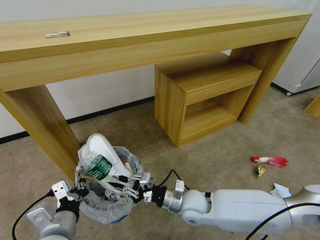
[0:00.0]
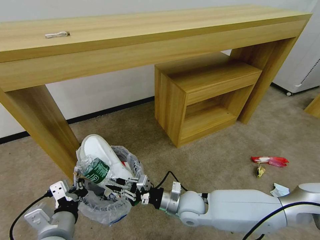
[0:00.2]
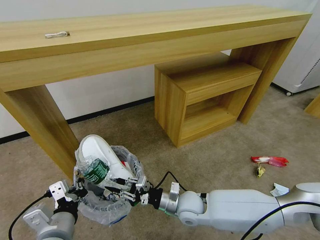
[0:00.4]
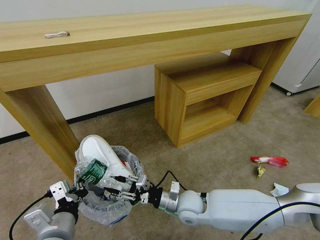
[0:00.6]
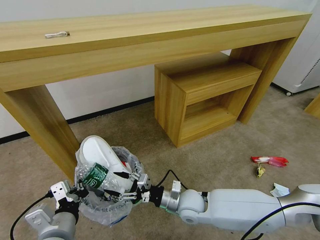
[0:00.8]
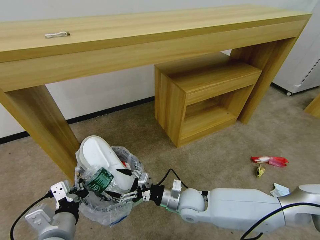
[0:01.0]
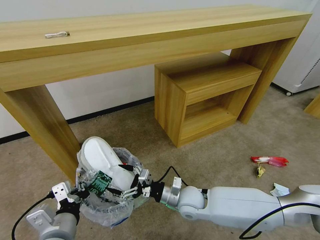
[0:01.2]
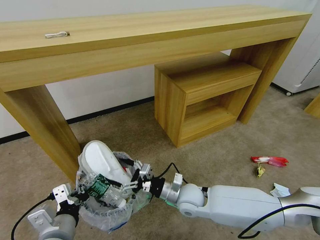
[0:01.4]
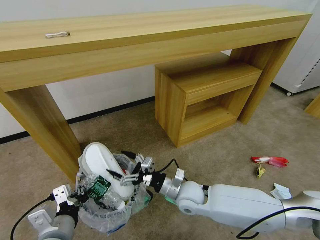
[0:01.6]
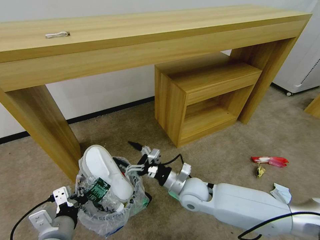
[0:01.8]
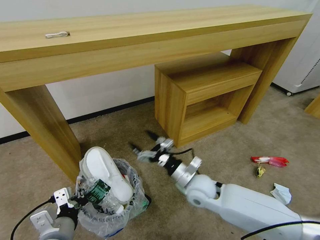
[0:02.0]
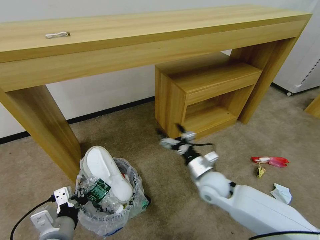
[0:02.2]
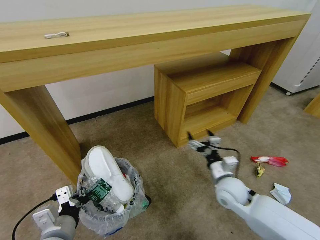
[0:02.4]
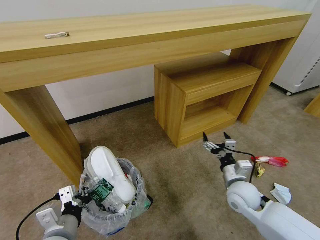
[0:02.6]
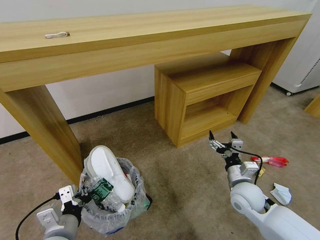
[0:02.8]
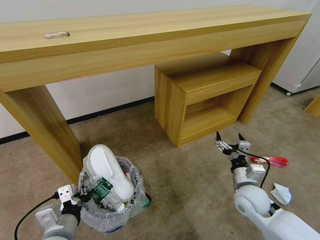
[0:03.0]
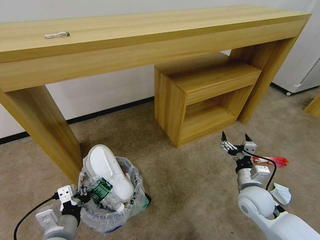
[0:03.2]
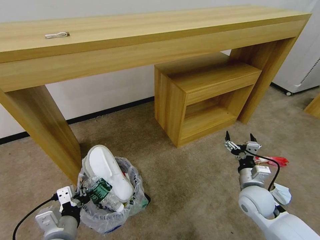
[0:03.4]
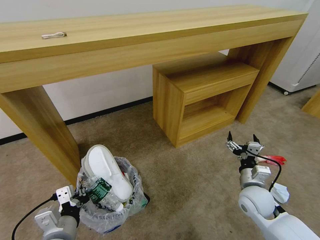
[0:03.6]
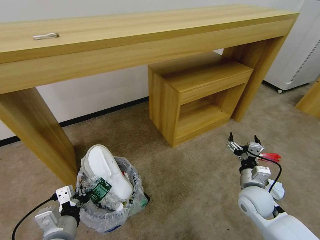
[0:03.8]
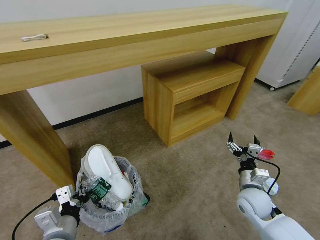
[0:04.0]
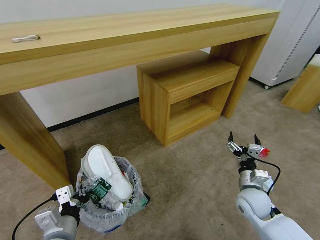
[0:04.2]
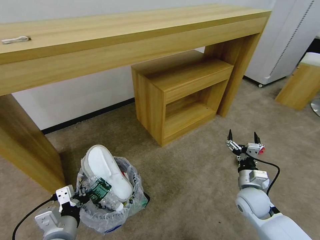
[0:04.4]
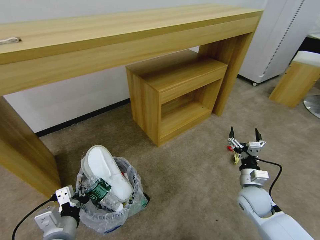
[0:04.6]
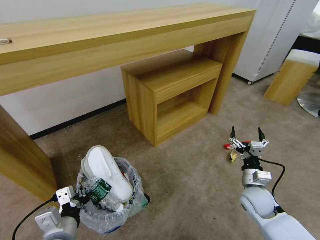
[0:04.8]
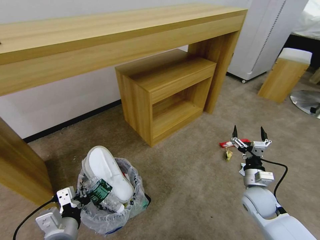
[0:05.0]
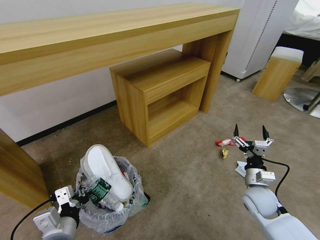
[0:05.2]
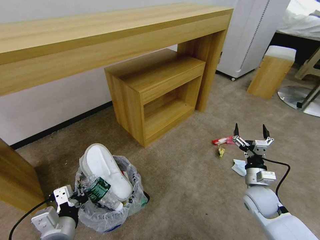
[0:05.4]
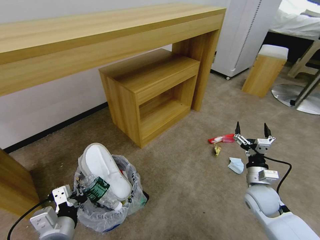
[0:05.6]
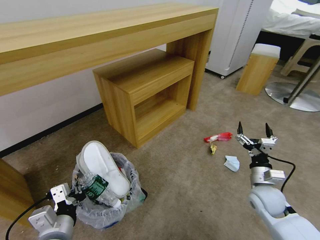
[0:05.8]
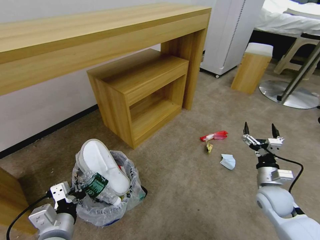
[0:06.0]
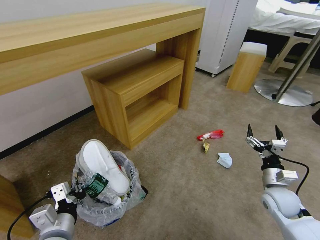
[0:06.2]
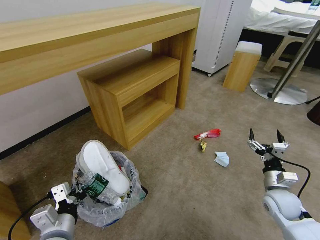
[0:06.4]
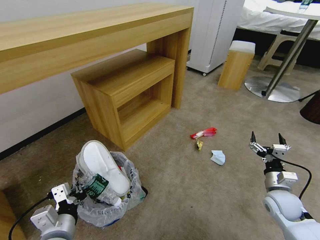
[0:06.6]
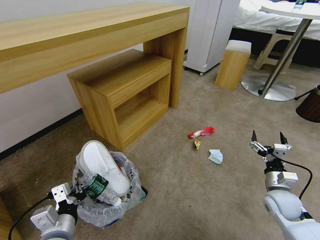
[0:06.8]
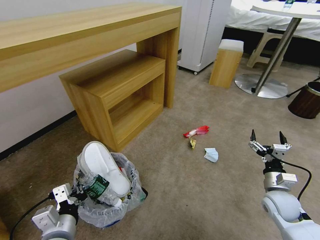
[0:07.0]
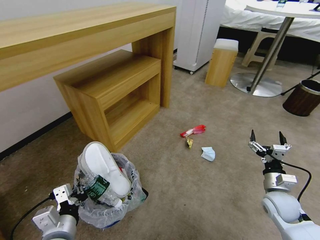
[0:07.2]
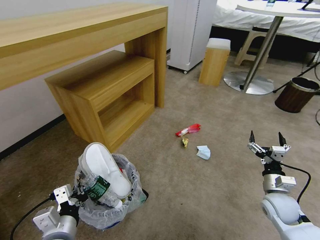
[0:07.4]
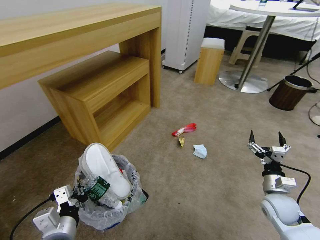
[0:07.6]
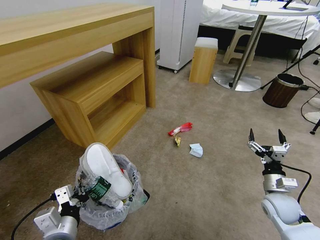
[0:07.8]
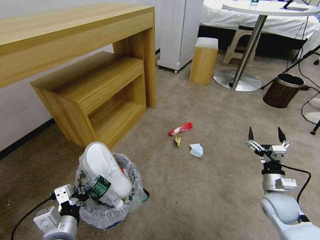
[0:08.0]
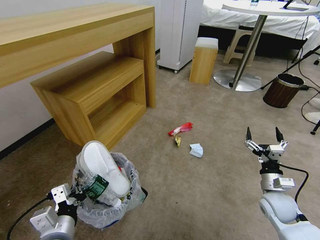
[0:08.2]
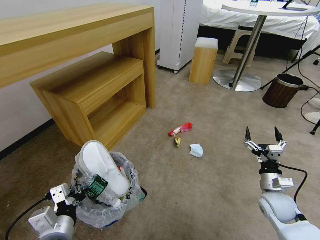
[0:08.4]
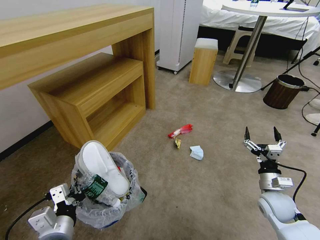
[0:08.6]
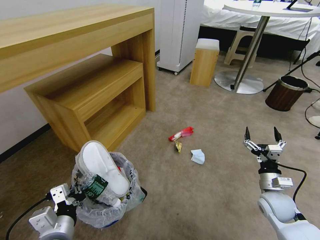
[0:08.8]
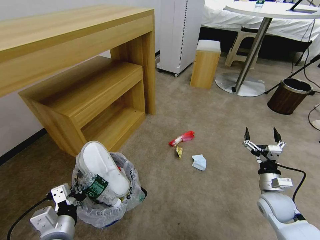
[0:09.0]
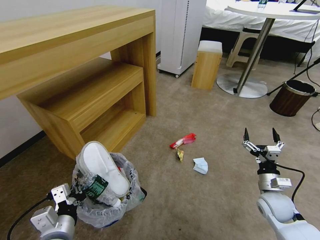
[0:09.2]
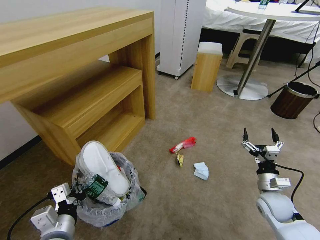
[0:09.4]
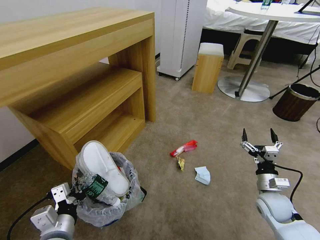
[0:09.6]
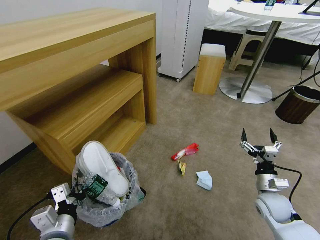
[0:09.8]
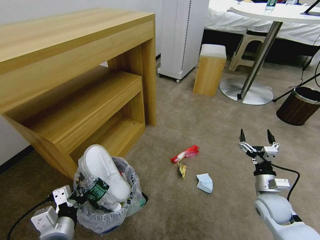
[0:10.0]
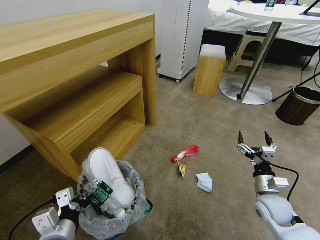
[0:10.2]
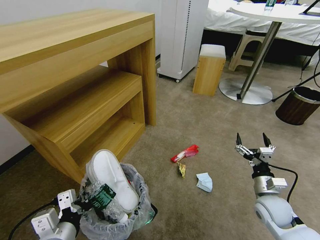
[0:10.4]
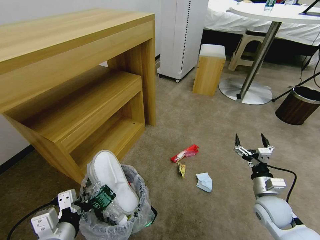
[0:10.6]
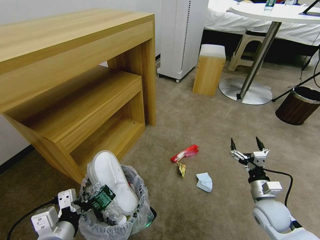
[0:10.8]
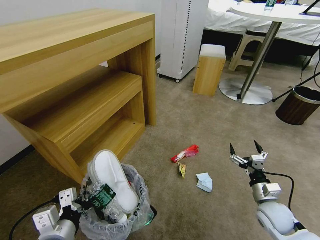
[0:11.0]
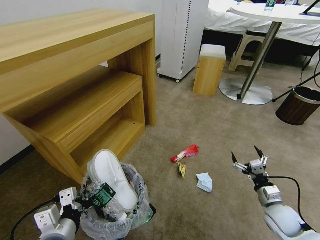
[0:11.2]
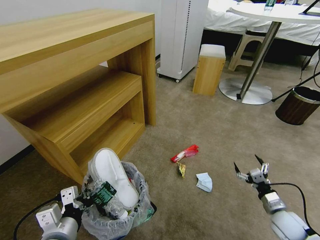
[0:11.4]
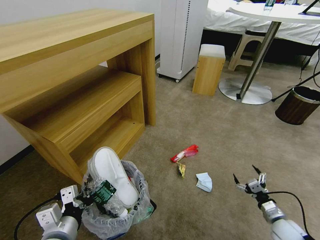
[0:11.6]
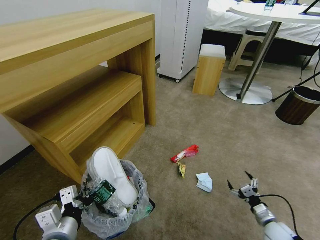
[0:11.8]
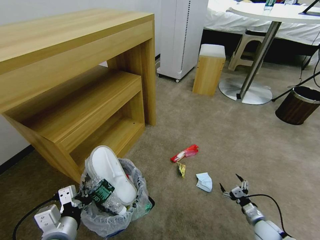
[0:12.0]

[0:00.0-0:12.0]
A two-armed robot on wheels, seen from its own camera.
Task of the whole recording: Pick up the trash bin and place the garbage on the floor into it.
0:00.0 to 0:01.6: The right gripper opens its fingers.
0:01.6 to 0:03.0: The right gripper travels to the right by some 20 cm.
0:04.4 to 0:06.0: The right gripper shifts roughly 5 cm to the right.
0:10.4 to 0:12.0: The right gripper heads downward, covering approximately 15 cm.

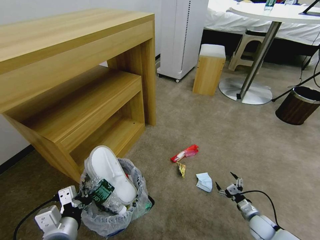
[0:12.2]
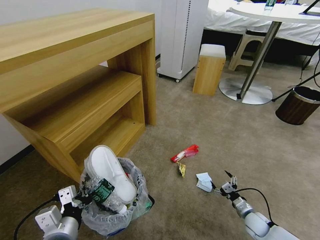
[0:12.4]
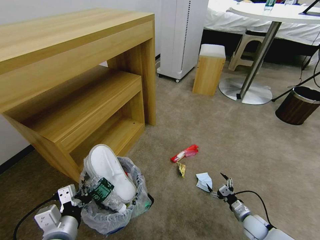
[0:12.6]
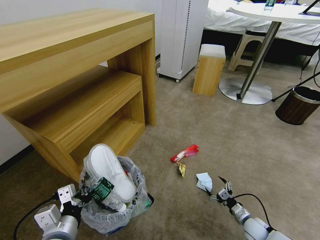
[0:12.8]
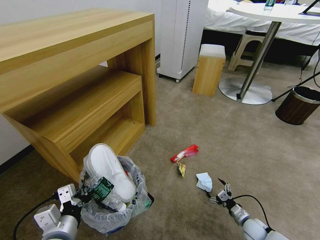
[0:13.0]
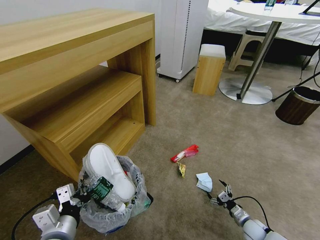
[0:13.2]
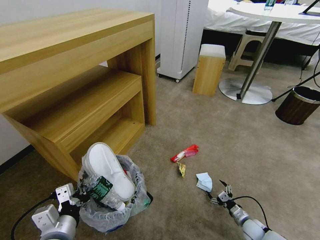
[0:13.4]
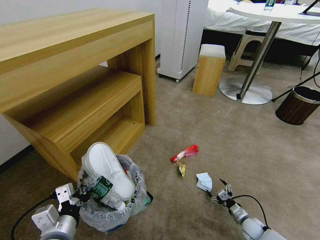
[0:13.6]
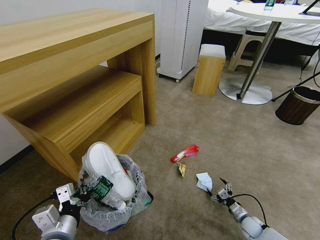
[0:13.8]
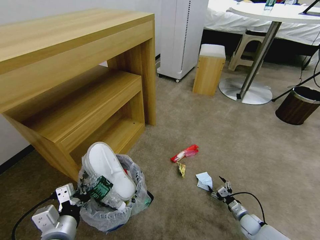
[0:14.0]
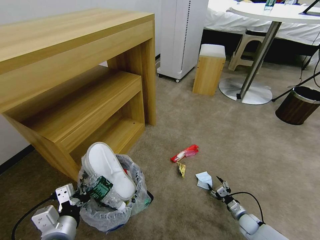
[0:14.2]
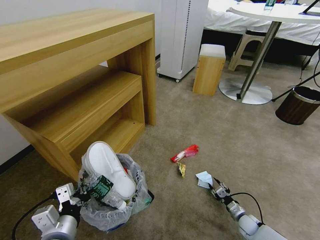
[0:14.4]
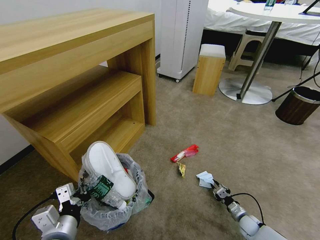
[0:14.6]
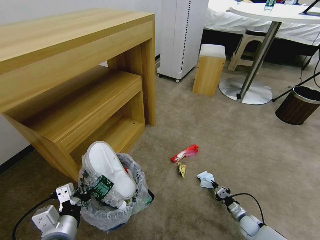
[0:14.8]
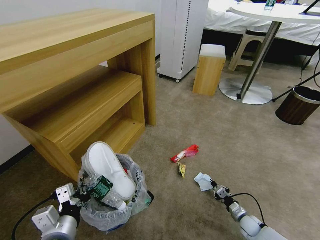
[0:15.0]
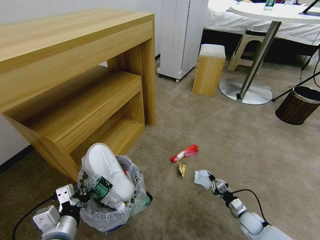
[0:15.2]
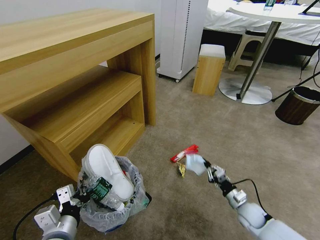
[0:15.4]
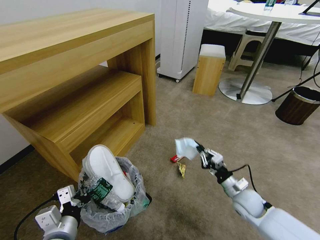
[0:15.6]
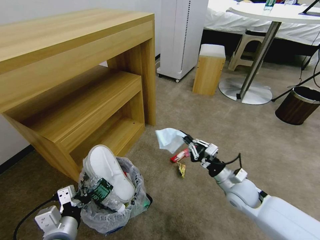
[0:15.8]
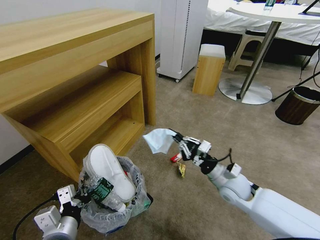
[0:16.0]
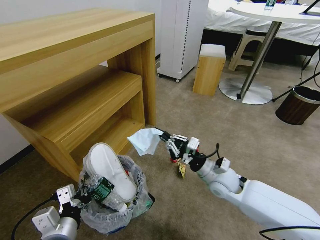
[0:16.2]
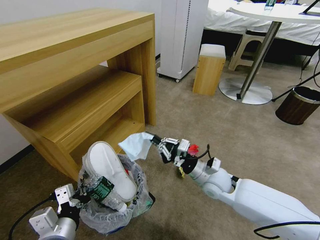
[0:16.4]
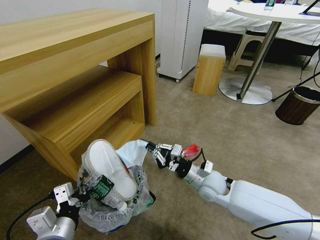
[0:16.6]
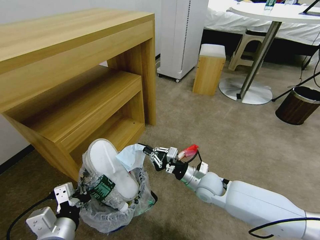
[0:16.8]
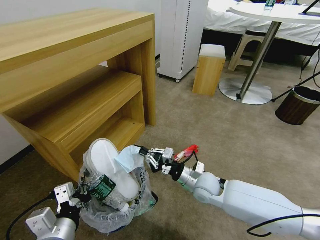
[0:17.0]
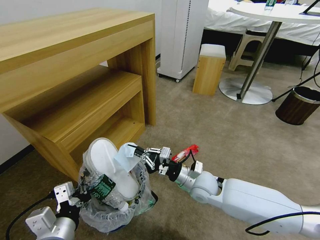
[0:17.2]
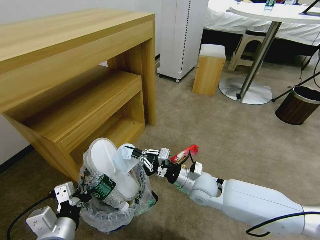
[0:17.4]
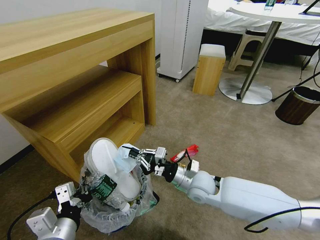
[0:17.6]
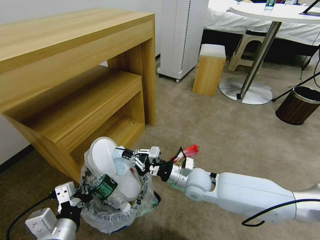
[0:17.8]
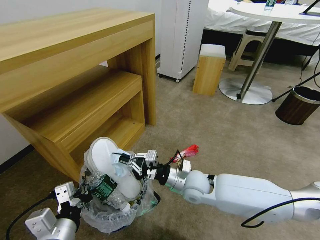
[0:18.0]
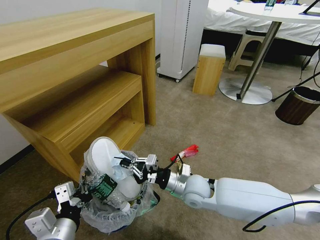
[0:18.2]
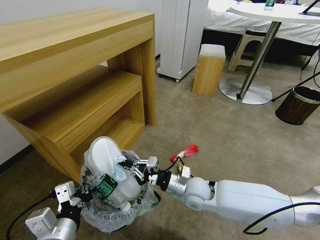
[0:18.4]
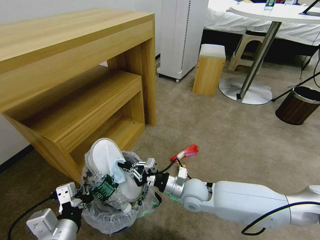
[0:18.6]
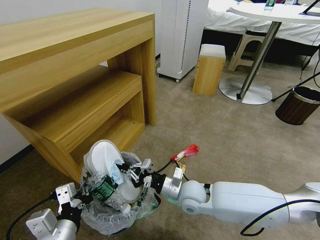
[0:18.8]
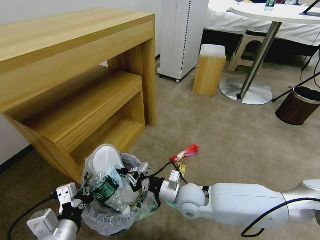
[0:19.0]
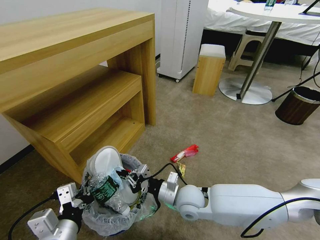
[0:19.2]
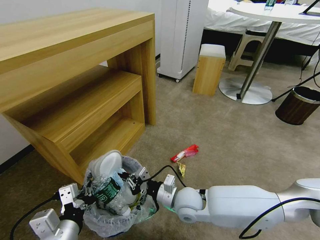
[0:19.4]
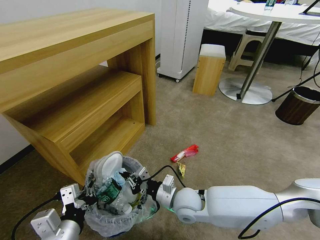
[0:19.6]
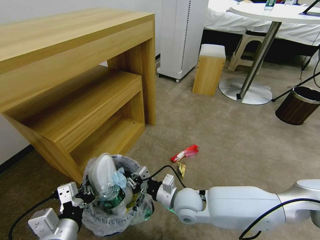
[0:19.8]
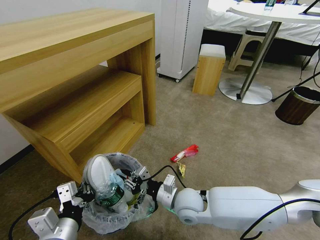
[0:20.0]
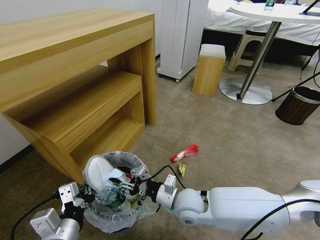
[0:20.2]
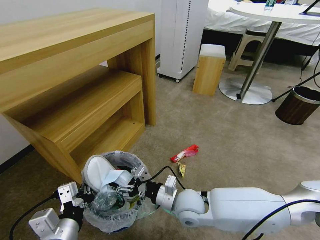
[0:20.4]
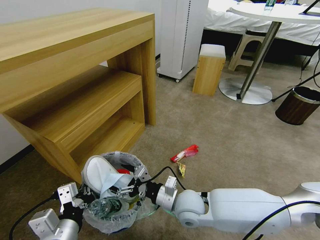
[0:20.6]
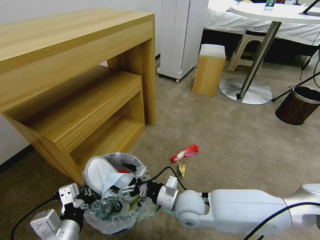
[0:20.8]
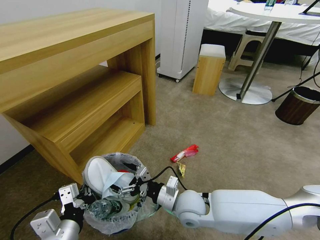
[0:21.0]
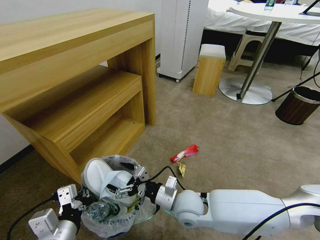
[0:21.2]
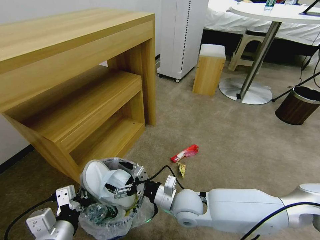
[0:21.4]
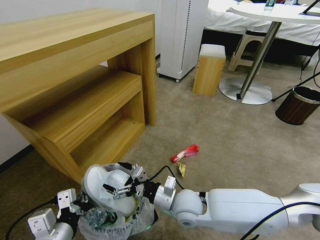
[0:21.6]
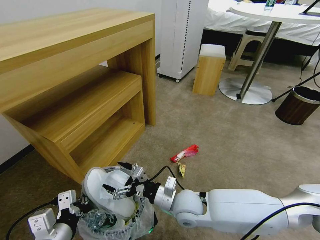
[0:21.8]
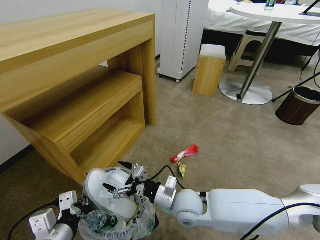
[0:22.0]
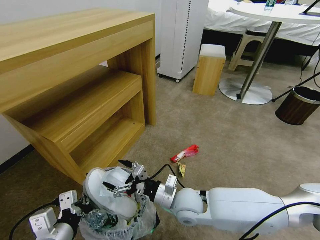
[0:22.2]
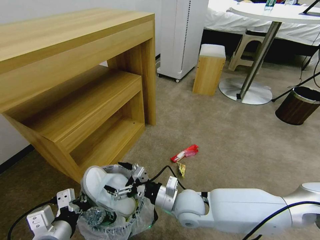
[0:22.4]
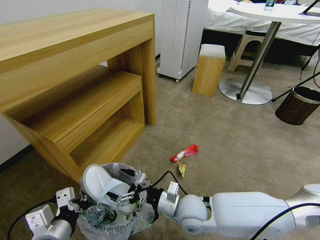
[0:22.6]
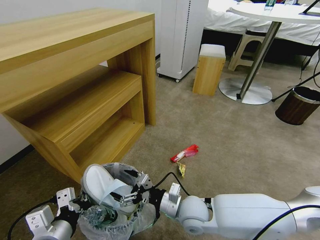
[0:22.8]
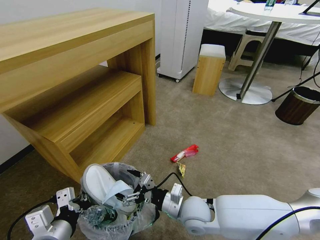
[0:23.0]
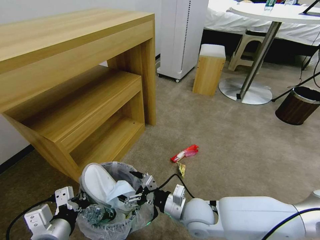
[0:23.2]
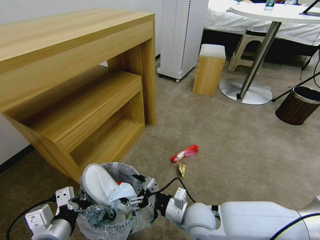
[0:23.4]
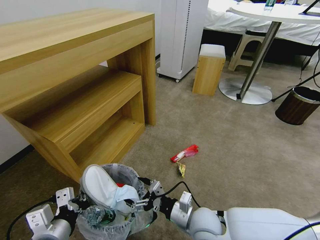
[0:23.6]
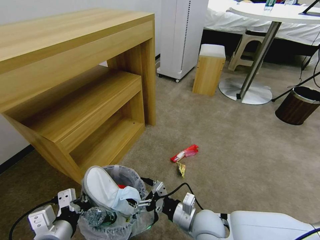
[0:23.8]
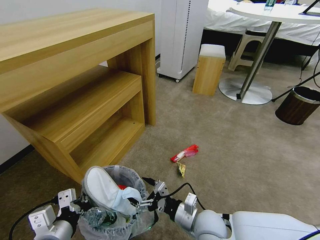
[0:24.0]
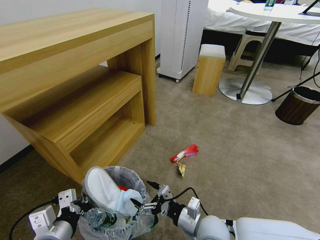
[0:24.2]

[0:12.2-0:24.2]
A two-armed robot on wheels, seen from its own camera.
Task of the whole recording: Pick up the trash bin and place the garbage on the floor into it.
0:12.2 to 0:13.8: The right gripper goes about 5 cm downward.
0:13.8 to 0:15.2: The right gripper closes its fingers.
0:15.2 to 0:16.6: The right gripper moves upward and to the left, about 30 cm.
0:16.6 to 0:18.2: The right gripper goes some 5 cm to the left.
0:18.2 to 0:19.8: The right gripper moves some 5 cm.
0:19.8 to 0:21.2: The right gripper opens its fingers.
0:21.2 to 0:22.6: There are only small adjustments of the grippers.
0:22.6 to 0:24.2: The right gripper moves to the right, about 5 cm.
